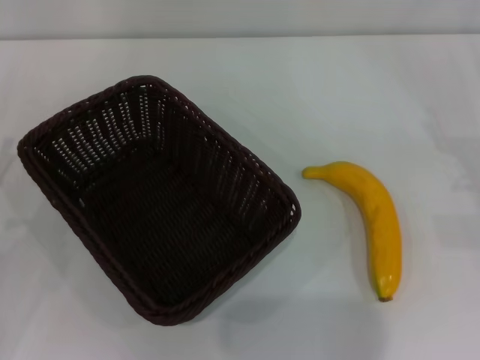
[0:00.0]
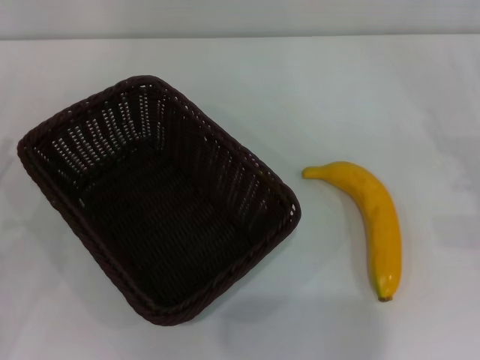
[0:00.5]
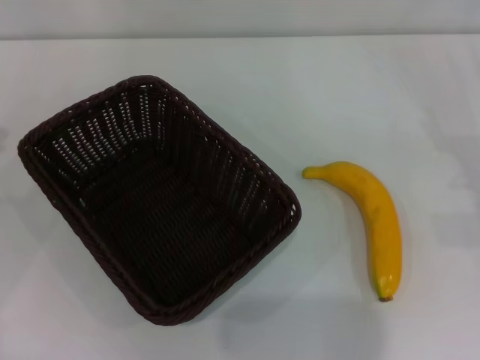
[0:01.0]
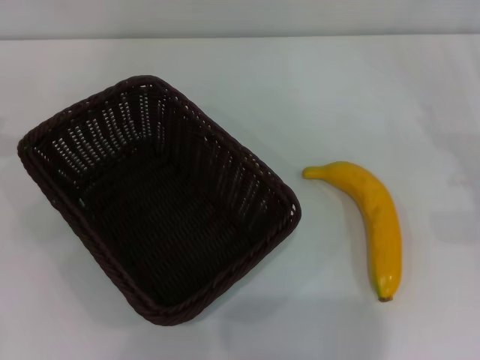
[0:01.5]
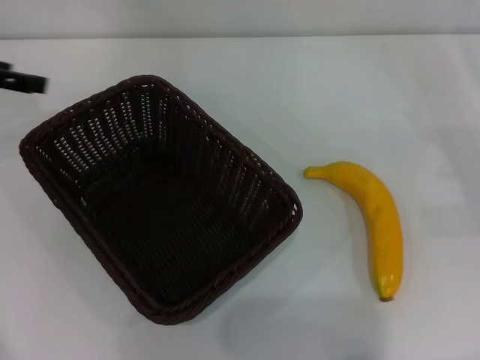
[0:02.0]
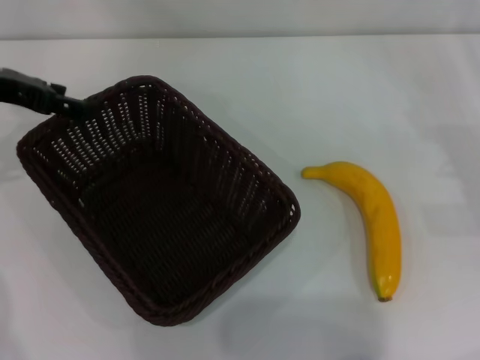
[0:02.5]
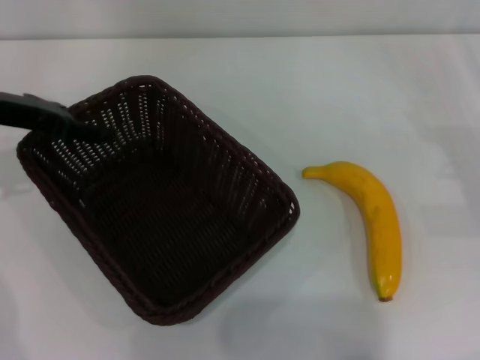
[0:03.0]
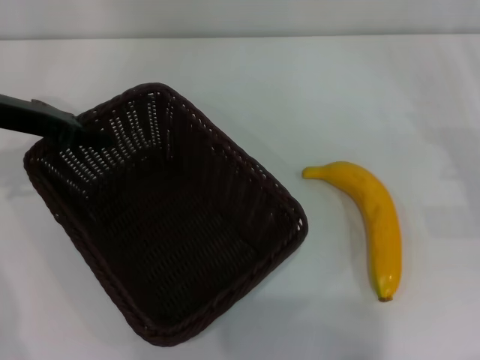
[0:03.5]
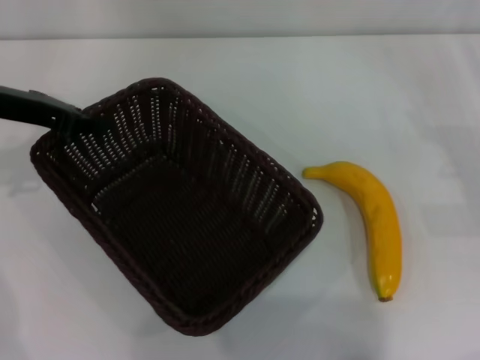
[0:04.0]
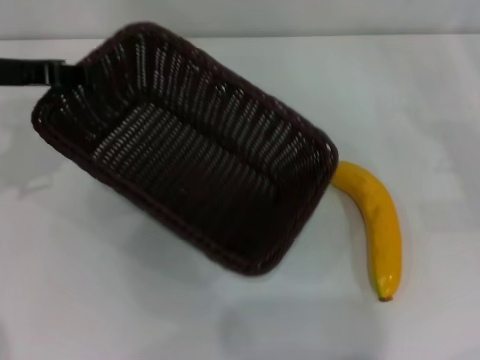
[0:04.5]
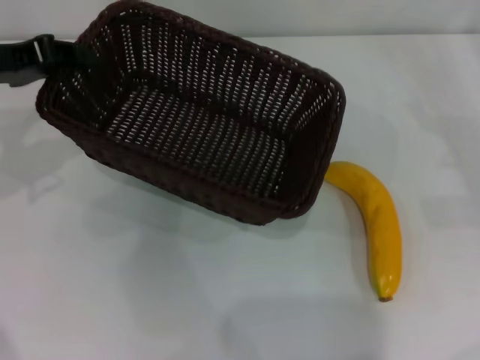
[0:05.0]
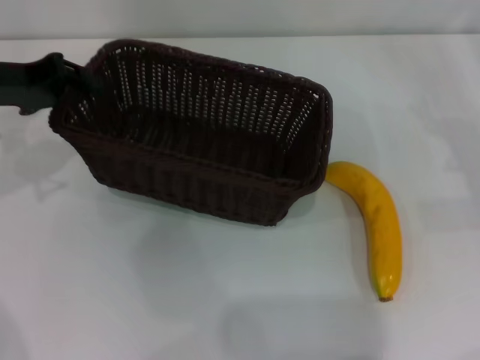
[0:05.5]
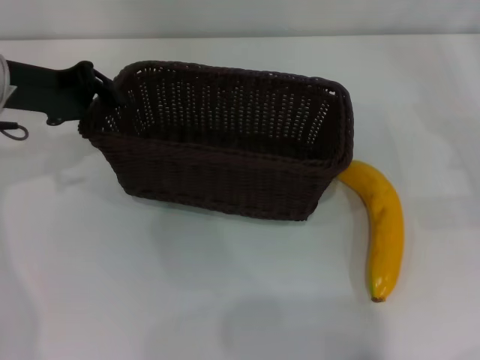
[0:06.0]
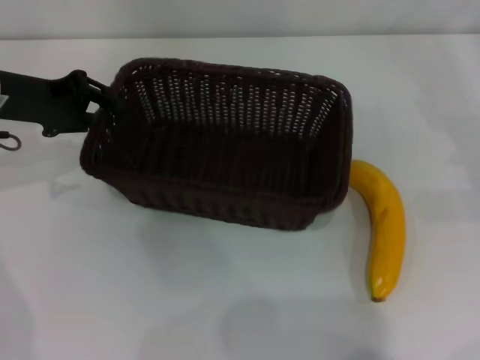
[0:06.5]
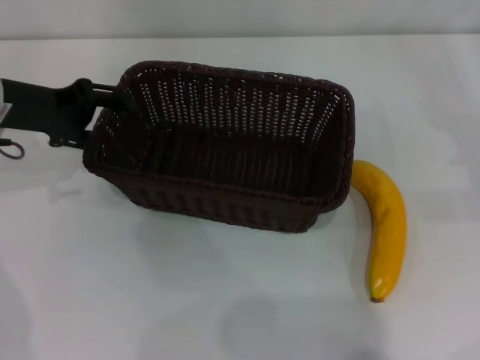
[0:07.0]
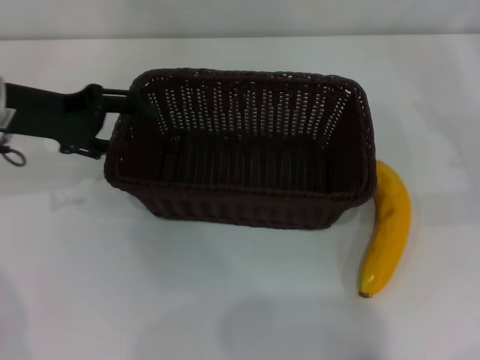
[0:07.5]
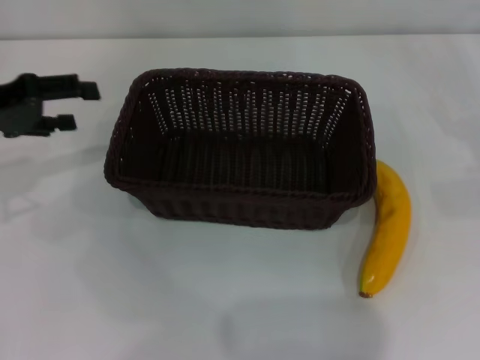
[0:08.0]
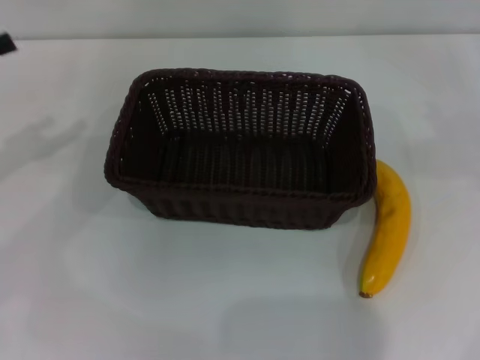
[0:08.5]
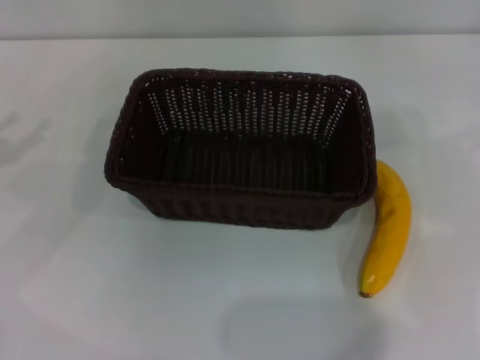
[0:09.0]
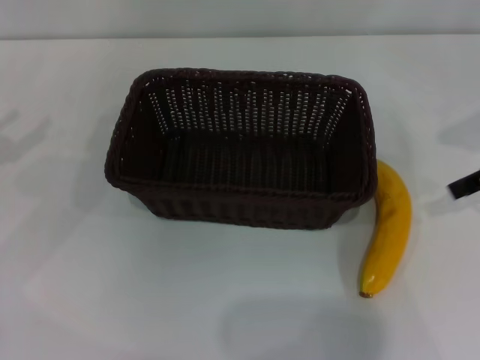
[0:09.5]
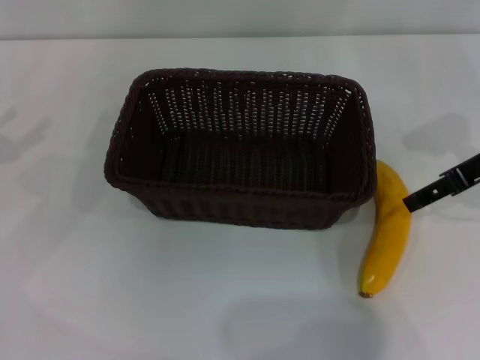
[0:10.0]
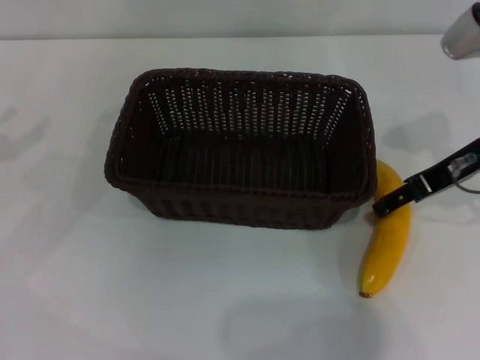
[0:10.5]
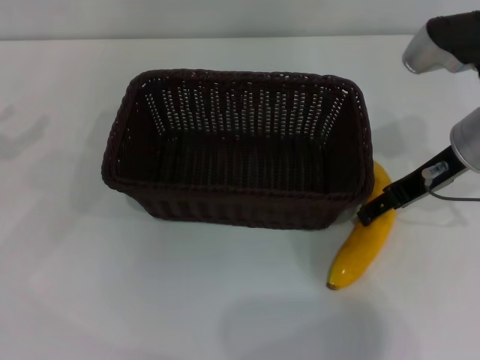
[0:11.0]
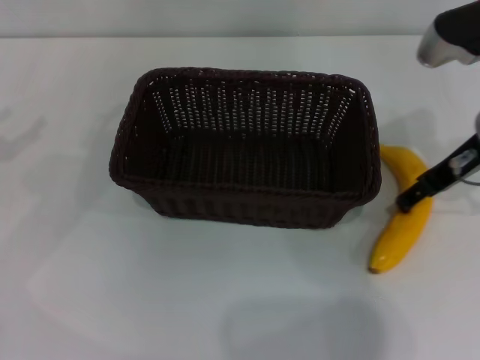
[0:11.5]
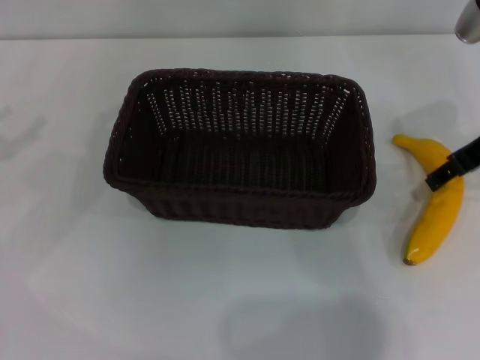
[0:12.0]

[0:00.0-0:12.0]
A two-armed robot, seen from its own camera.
Step, 0:00.0 to 0:04.0: Pick up the dark basket with the left gripper.
Step, 0:04.5 to 0:07.5: Place the dark basket in the center of view with the left gripper.
0:00.0 to 0:02.0: The left gripper heads forward and upward, covering approximately 20 cm.
0:02.0 to 0:04.0: The left gripper goes approximately 10 cm to the right and downward, and closes its fingers.
0:06.0 to 0:08.0: The left gripper shifts approximately 5 cm to the left, and opens up.
0:08.0 to 0:10.0: The left gripper moves to the left and backward, some 10 cm. The right gripper heads to the left and upward, covering about 20 cm.

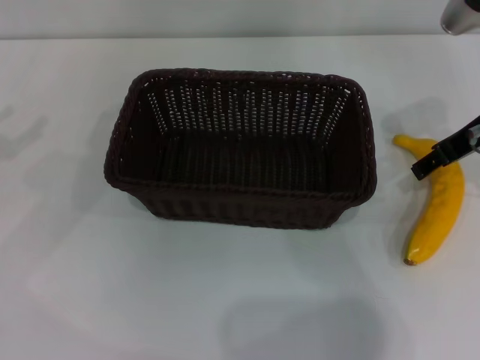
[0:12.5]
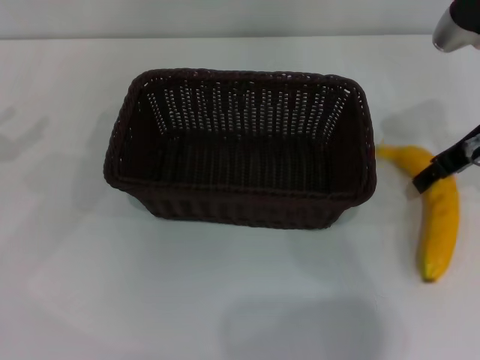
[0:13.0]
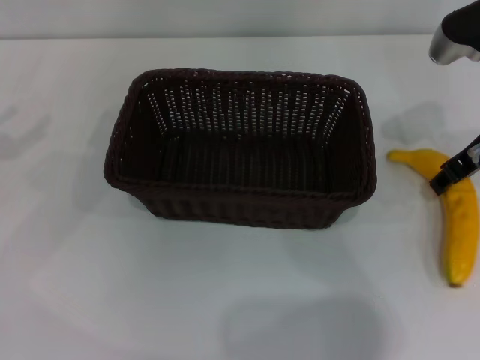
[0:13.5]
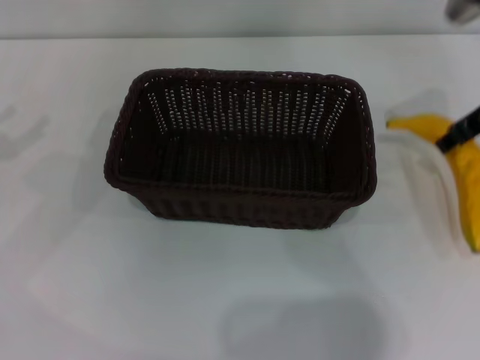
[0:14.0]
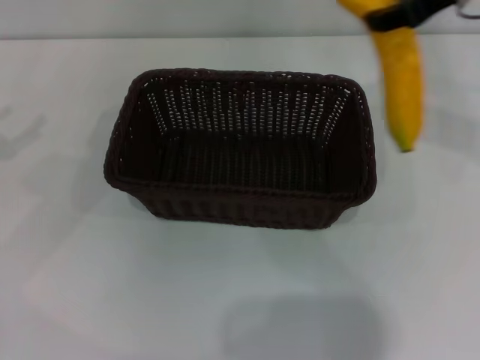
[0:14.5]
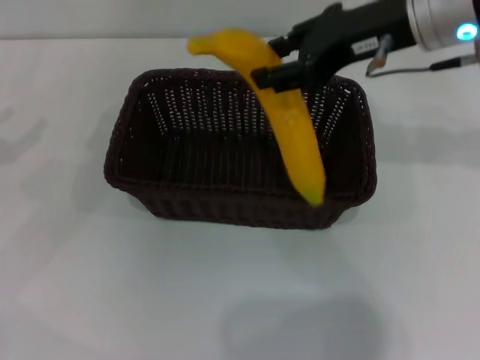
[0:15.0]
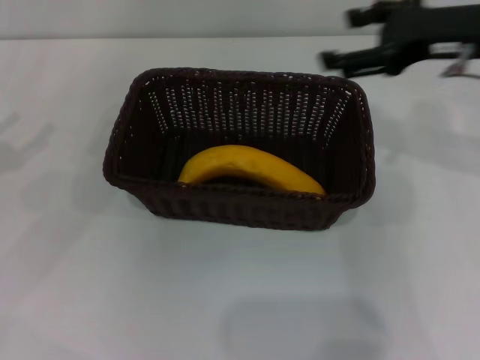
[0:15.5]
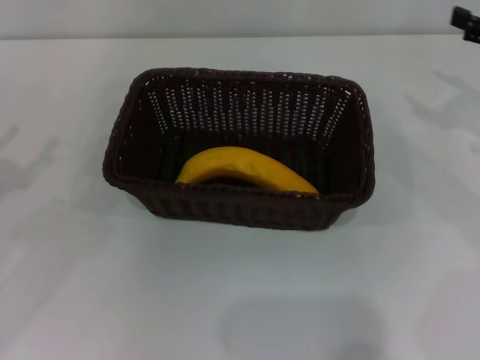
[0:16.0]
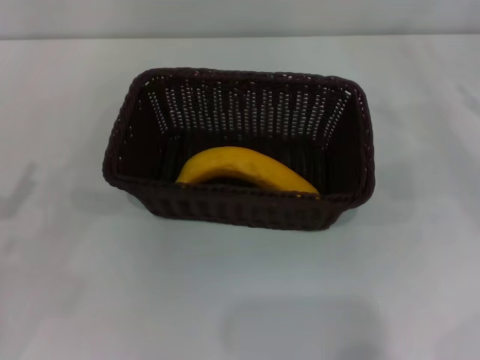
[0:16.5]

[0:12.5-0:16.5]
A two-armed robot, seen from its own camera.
Step, 0:14.5 to 0:15.0: Place the banana into the dark basket with the right gripper.
0:12.5 to 0:14.5: The right gripper goes some 10 cm upward, and closes up.
0:14.5 to 0:16.5: The right gripper heads downward and to the right, covering roughly 25 cm, and opens its fingers; the left gripper travels downward, backward and to the right by some 15 cm.
